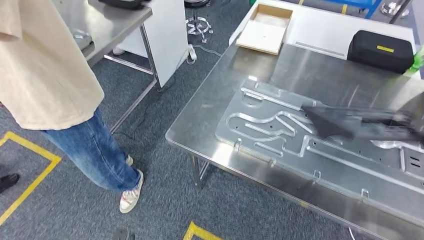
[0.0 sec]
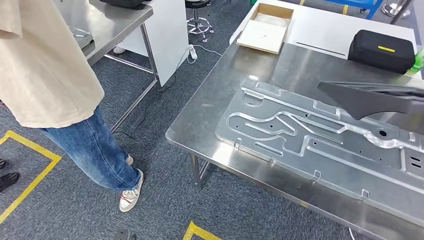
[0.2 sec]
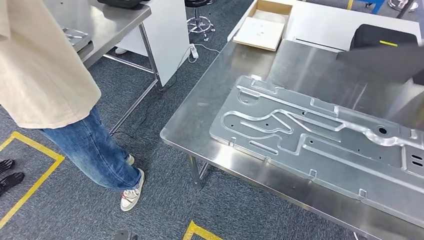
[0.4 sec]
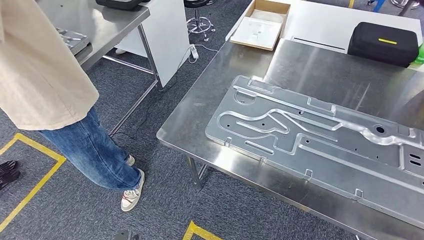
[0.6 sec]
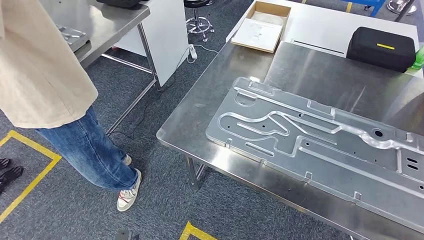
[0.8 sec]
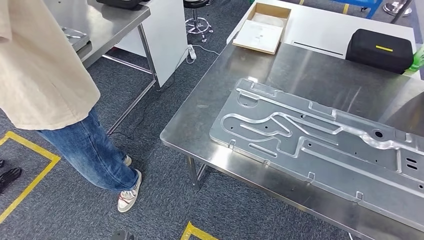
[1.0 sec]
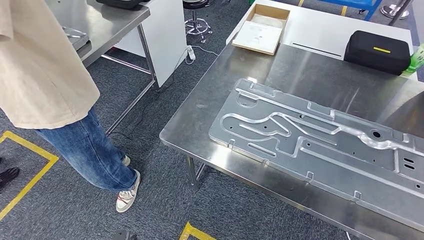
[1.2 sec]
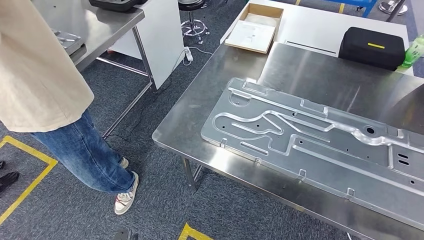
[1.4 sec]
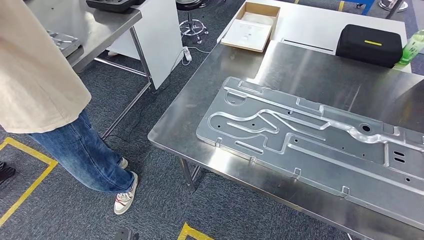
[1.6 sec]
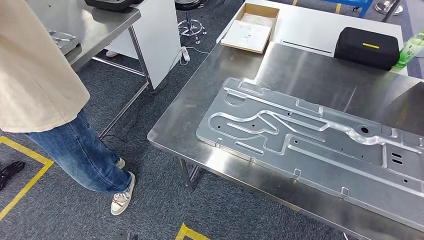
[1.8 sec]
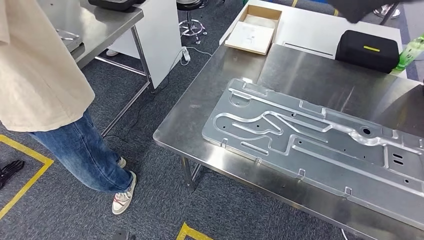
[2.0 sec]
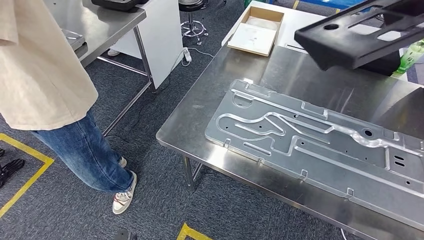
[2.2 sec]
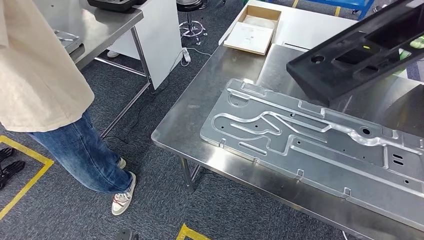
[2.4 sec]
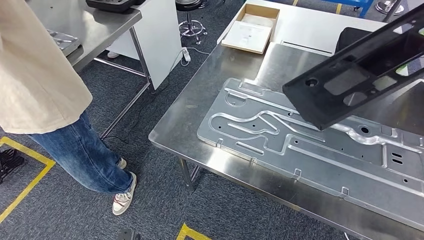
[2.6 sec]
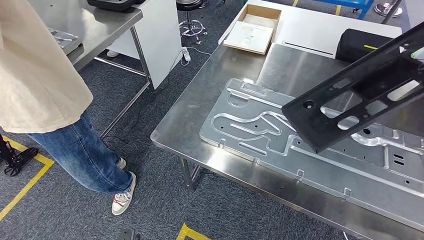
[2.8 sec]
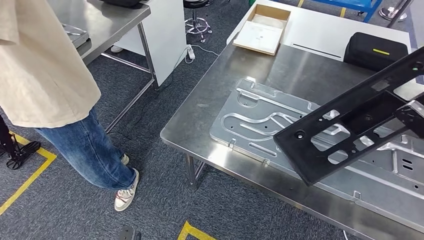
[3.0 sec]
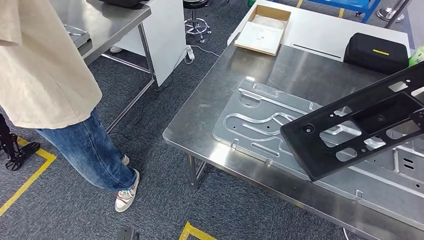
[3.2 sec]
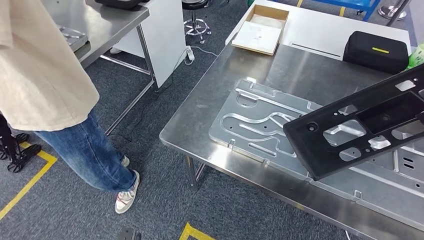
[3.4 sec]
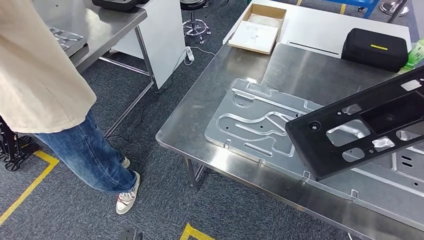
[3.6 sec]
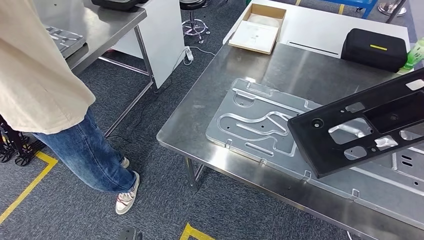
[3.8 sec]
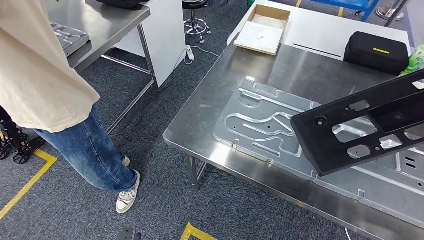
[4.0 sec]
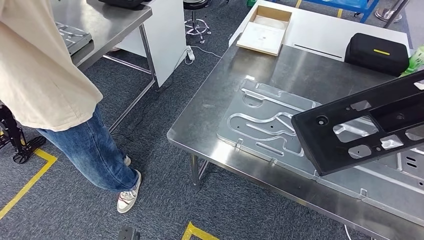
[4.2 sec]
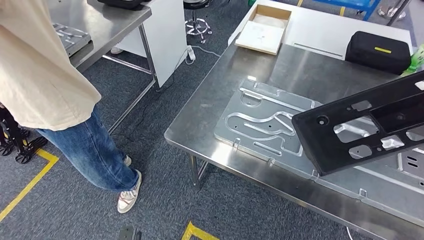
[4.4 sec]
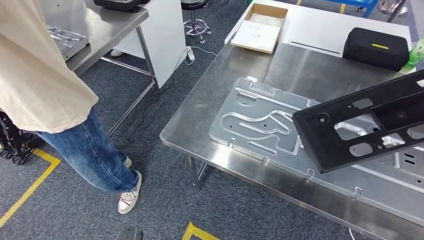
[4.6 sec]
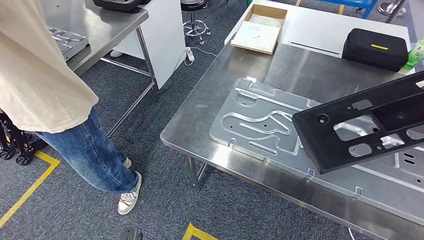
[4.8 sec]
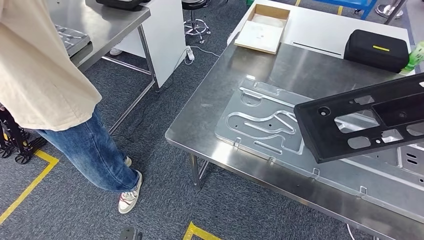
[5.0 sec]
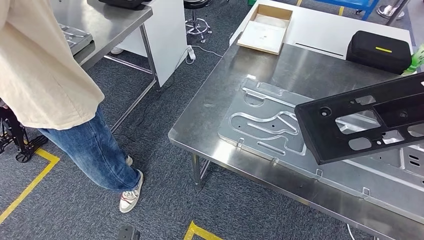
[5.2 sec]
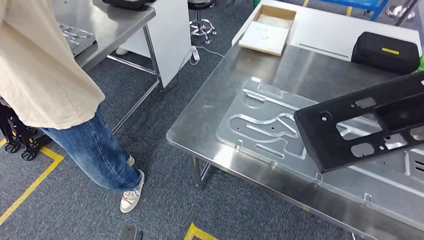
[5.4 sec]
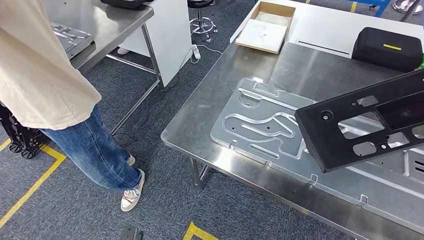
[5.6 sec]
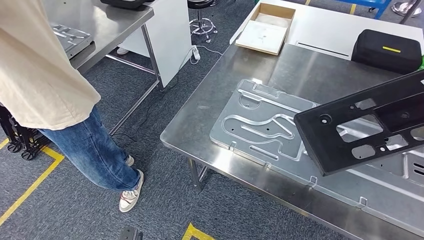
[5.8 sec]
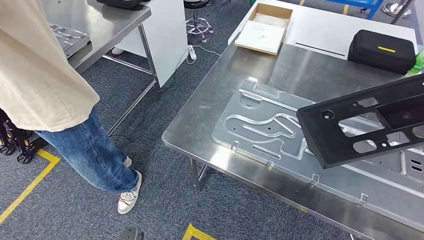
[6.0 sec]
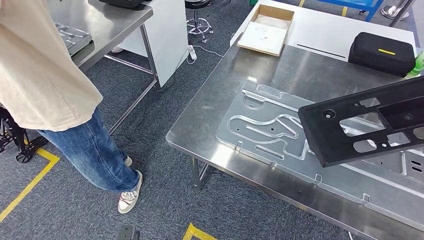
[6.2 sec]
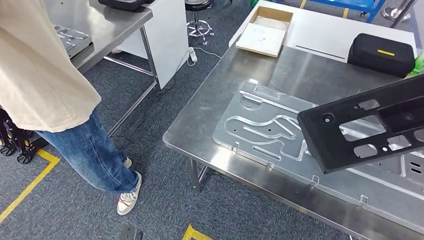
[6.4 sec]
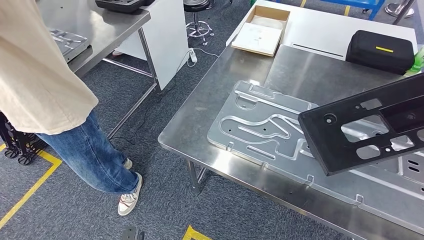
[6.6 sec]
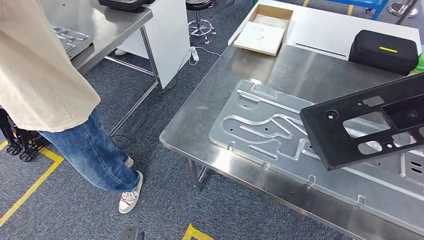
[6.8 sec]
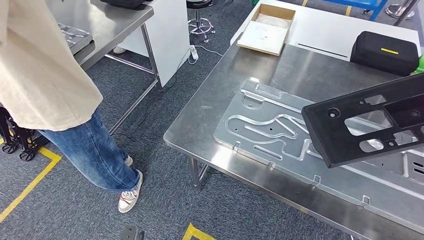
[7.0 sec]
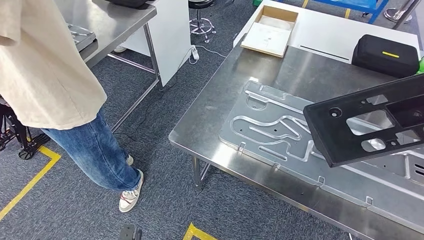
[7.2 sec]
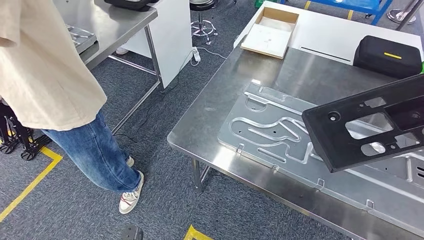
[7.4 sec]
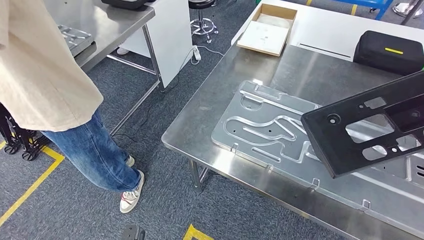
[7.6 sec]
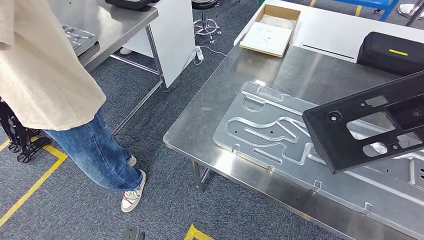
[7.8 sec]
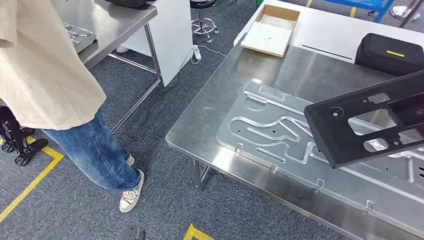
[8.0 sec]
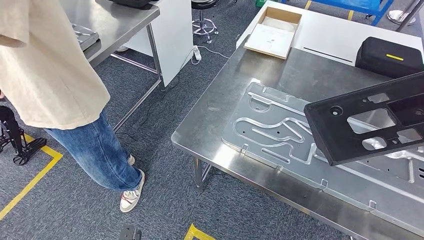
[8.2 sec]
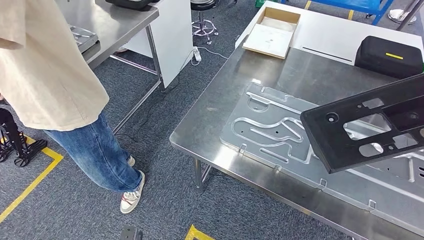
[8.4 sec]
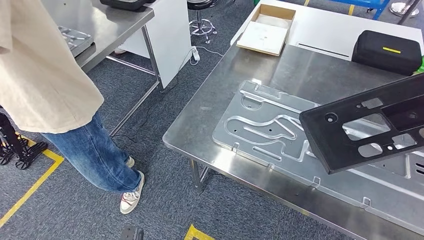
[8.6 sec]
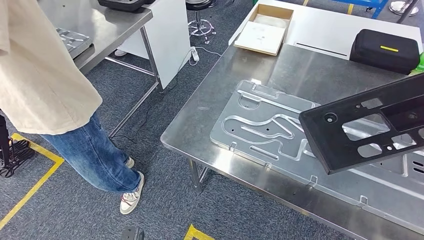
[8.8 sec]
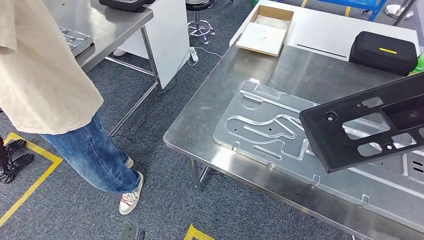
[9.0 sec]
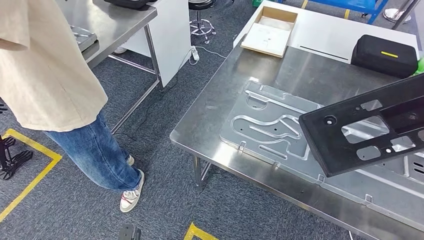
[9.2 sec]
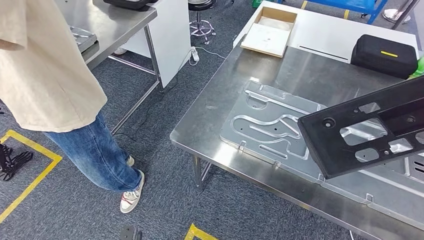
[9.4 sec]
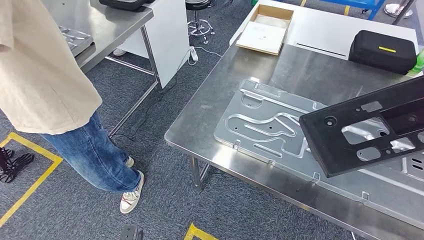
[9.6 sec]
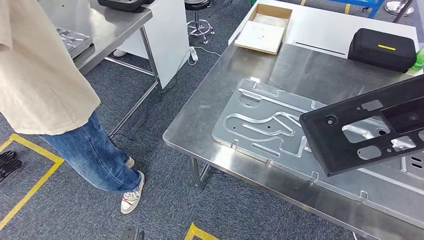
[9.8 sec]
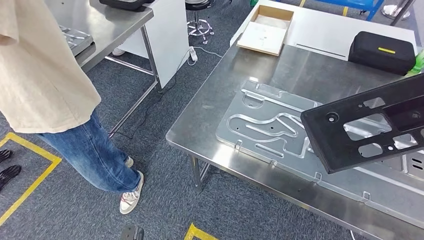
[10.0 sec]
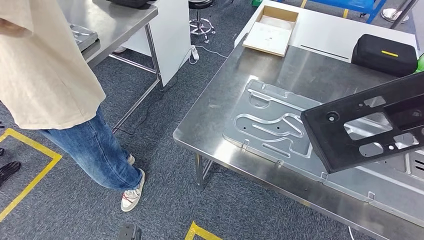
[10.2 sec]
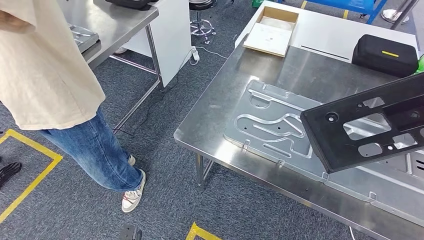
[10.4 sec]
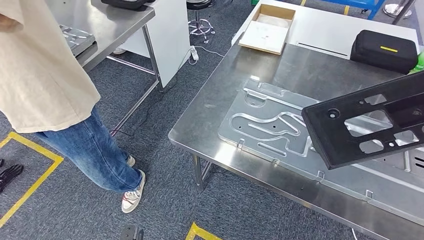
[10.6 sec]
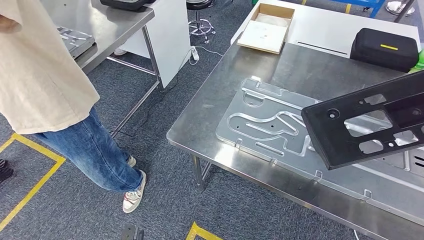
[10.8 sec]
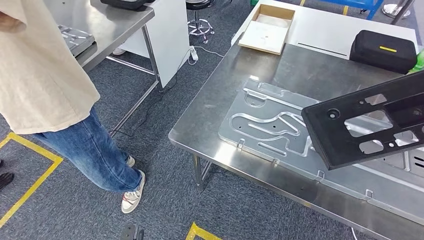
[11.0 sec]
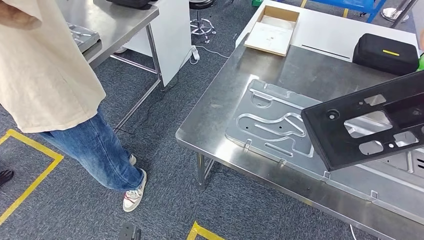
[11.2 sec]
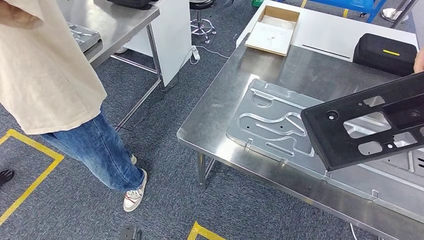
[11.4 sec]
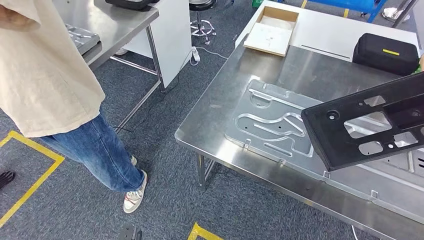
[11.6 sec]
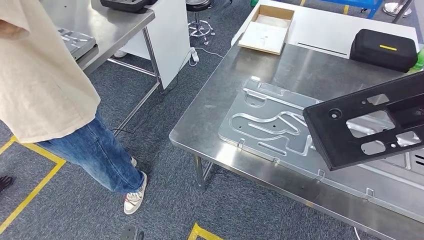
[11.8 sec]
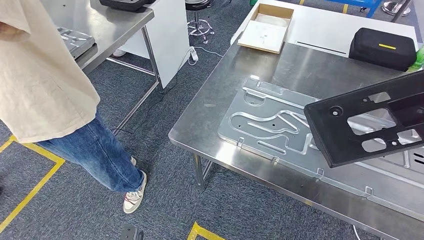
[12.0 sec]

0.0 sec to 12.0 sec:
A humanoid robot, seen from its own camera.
4.4 sec to 6.0 sec: Both hands stay about where they are.
7.6 sec to 9.0 sec: Neither hand changes place.

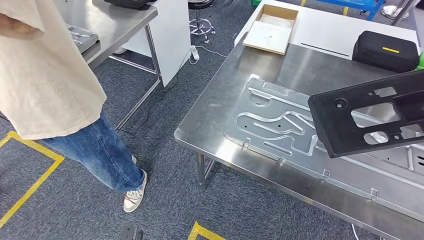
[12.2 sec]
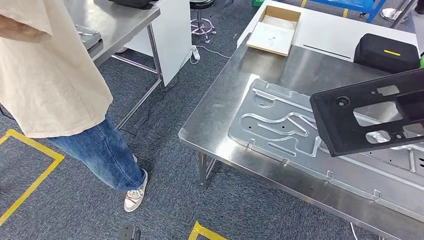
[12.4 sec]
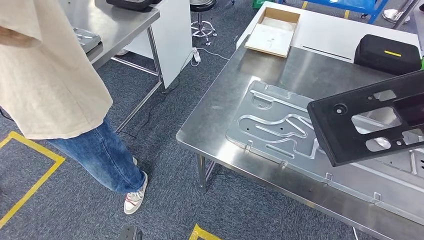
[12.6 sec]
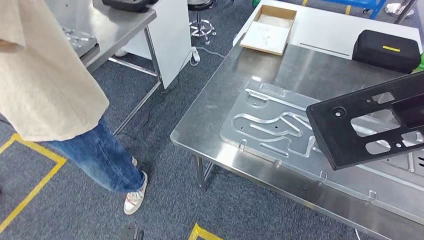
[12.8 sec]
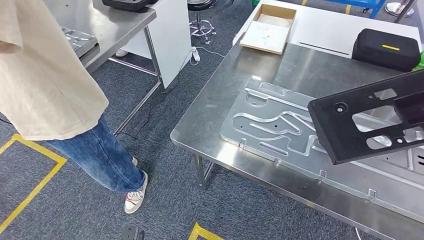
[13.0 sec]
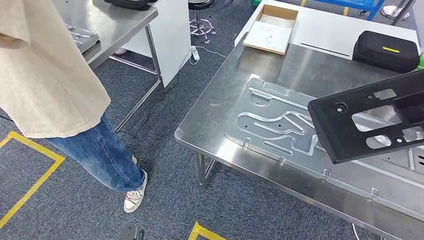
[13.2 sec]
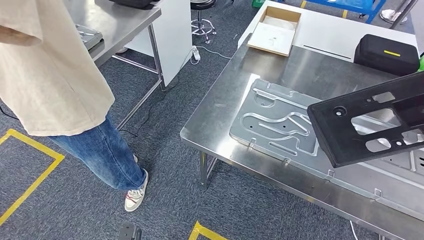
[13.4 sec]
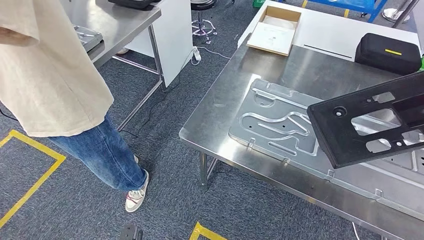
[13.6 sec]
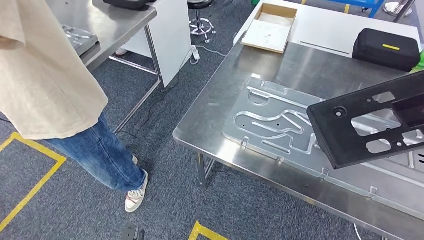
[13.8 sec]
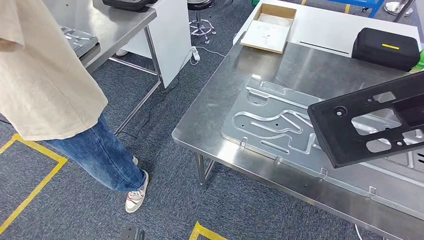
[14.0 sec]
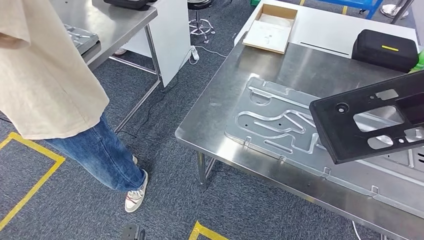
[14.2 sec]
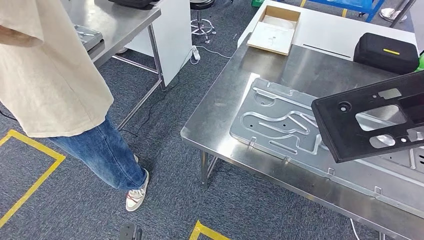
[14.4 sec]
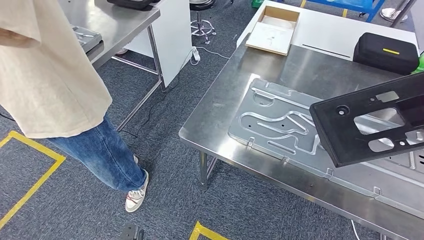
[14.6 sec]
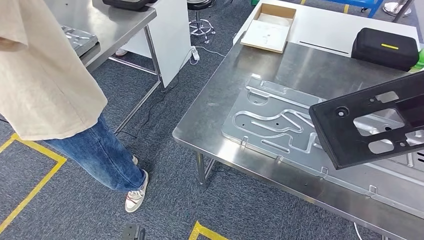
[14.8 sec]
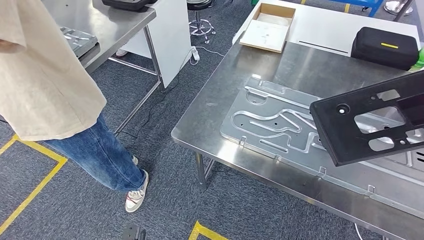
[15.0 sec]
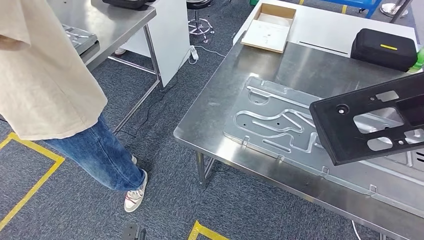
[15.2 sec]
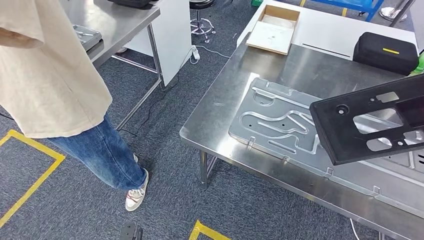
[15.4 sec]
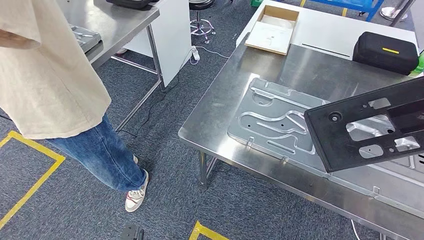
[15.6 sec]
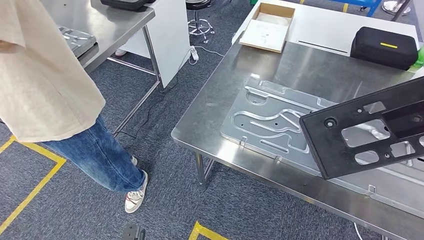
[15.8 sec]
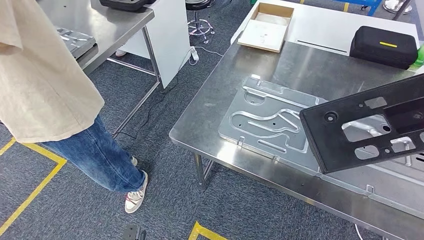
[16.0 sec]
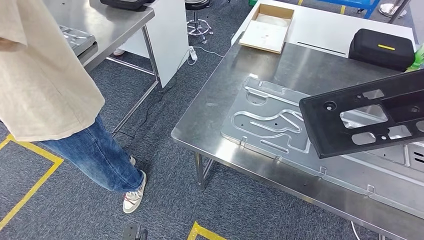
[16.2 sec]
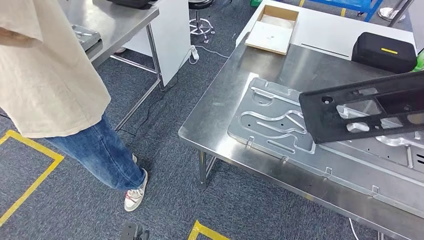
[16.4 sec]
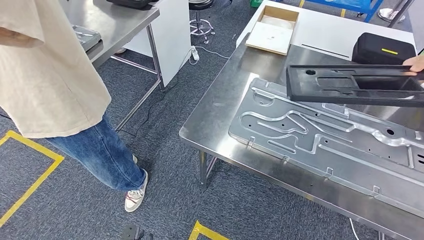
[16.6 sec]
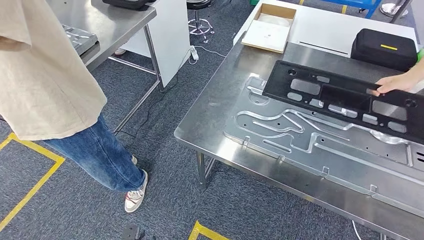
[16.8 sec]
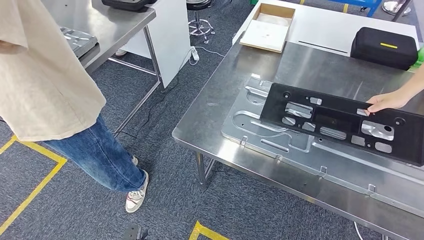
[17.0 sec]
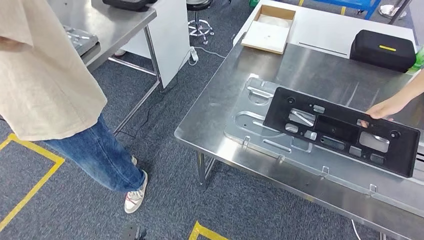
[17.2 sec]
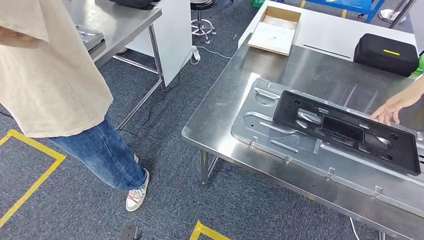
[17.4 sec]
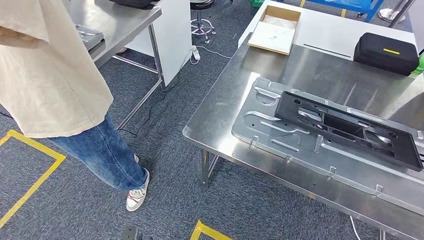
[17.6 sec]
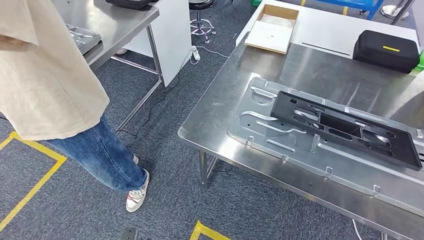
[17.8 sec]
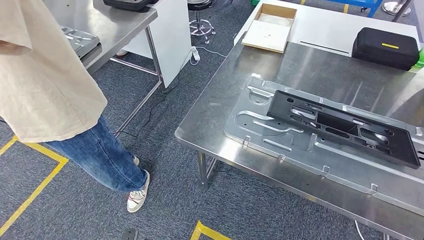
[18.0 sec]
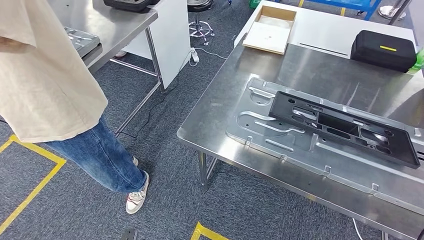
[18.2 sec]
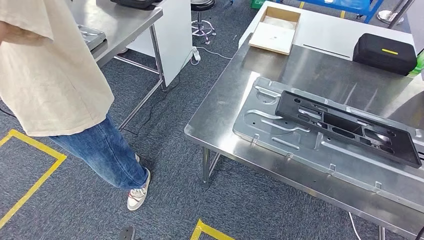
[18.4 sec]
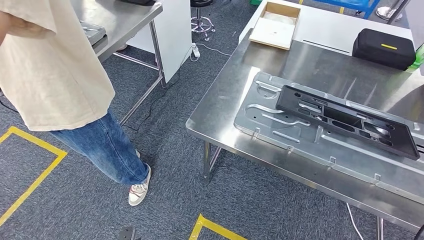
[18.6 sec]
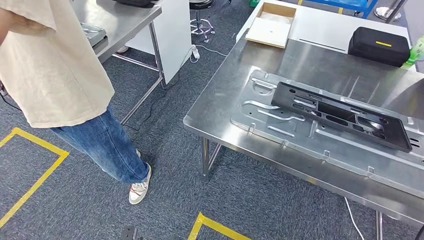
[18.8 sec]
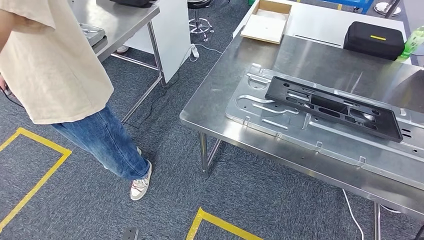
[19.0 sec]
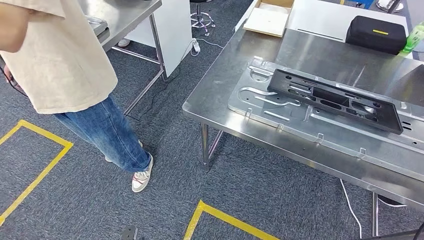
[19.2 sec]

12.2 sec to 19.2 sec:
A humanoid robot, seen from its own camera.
Step, 12.2 sec to 18.4 sec: Insert the large material into the corresponding slot on the workbench.
12.2 sec to 15.0 sec: Both hands stay about where they are.
16.4 sec to 17.8 sec: The hands stay close to where they were, moving slightly.
